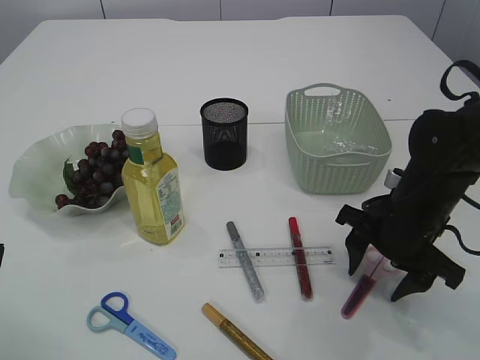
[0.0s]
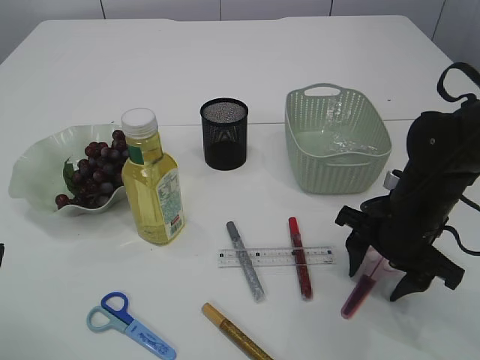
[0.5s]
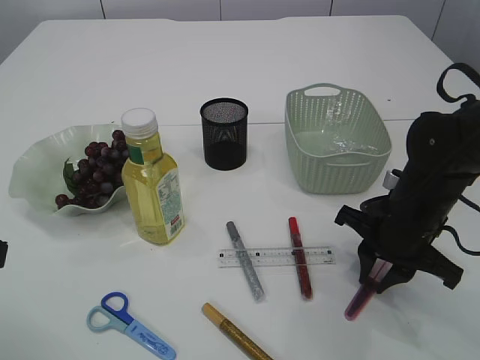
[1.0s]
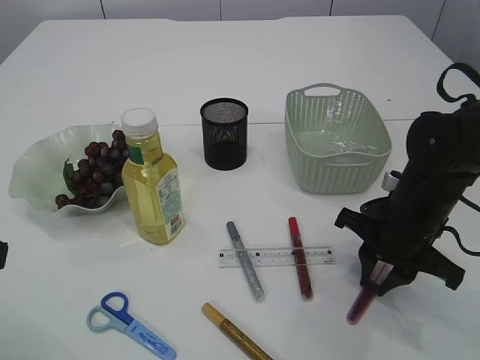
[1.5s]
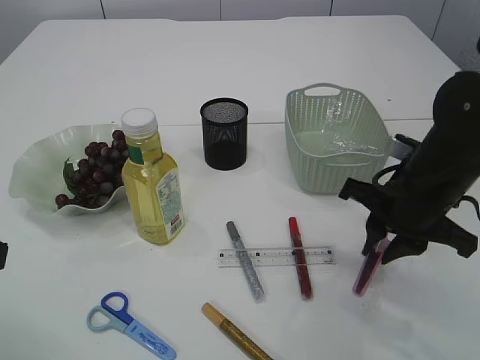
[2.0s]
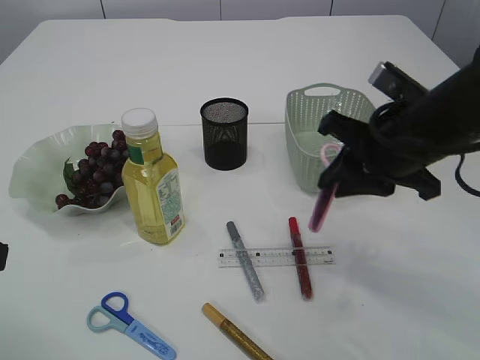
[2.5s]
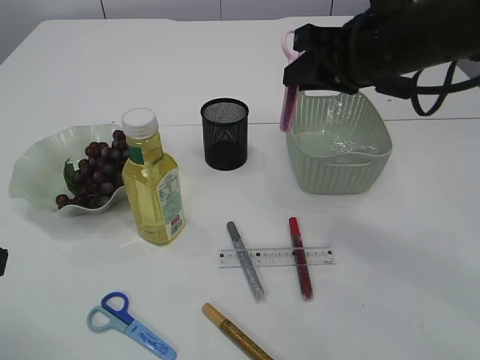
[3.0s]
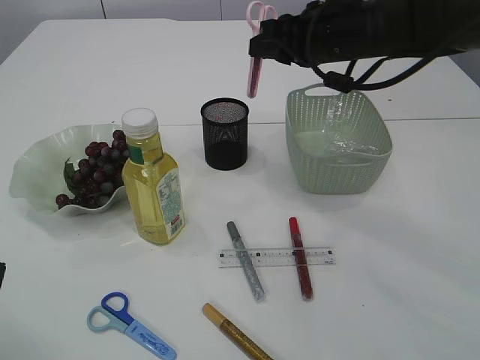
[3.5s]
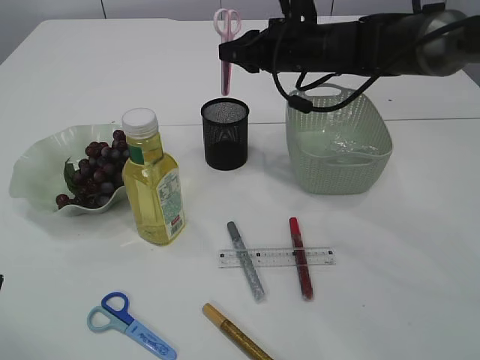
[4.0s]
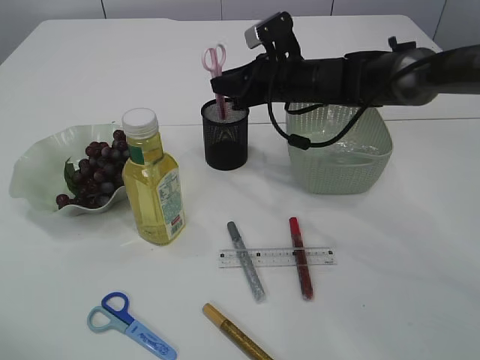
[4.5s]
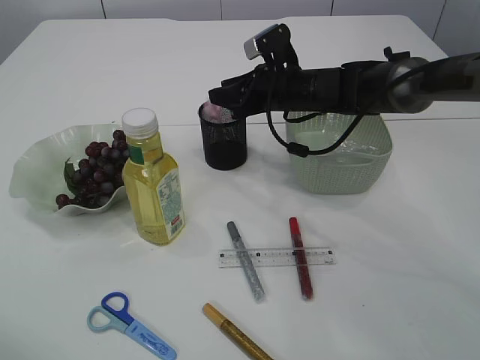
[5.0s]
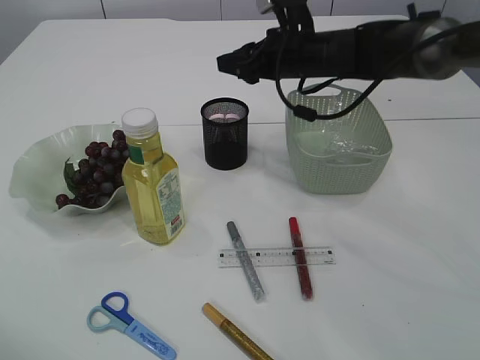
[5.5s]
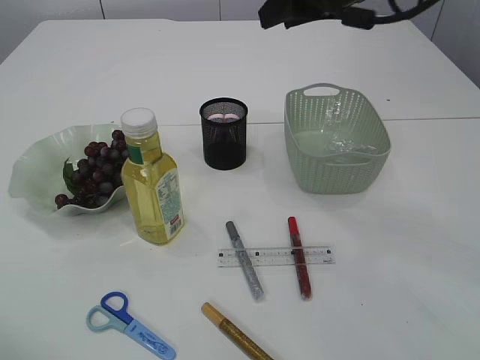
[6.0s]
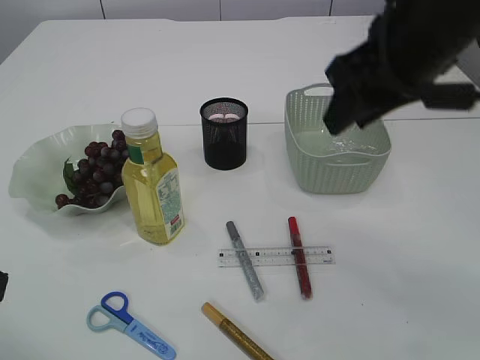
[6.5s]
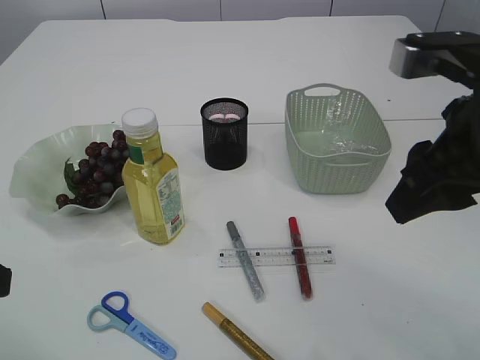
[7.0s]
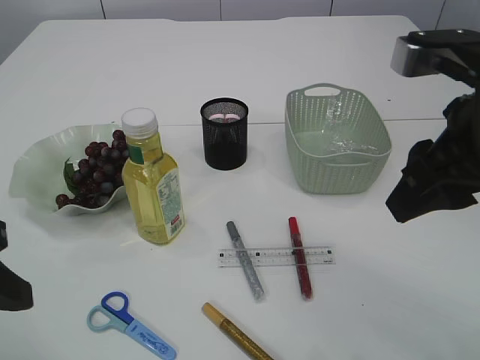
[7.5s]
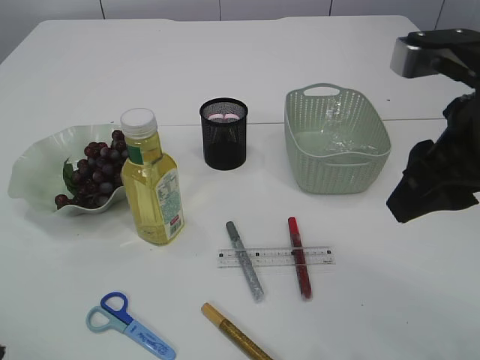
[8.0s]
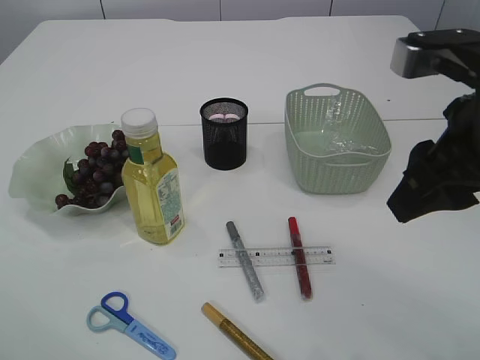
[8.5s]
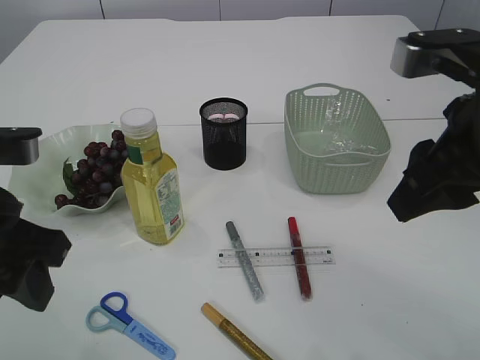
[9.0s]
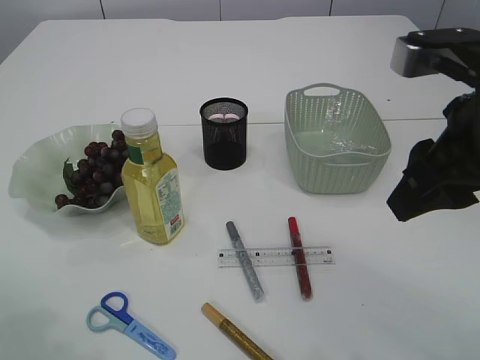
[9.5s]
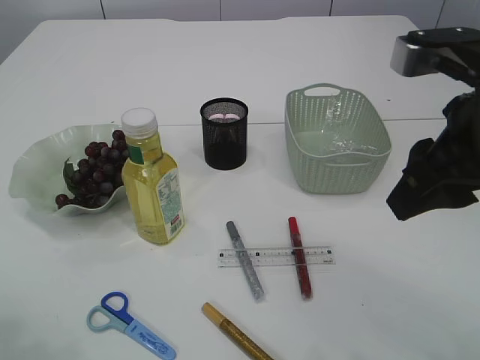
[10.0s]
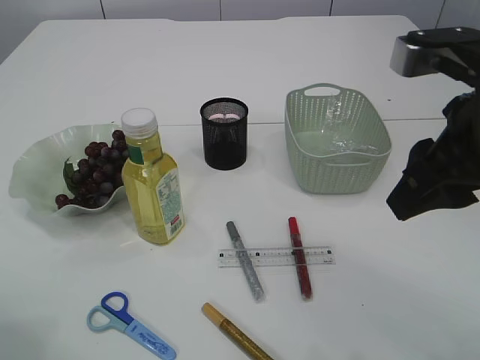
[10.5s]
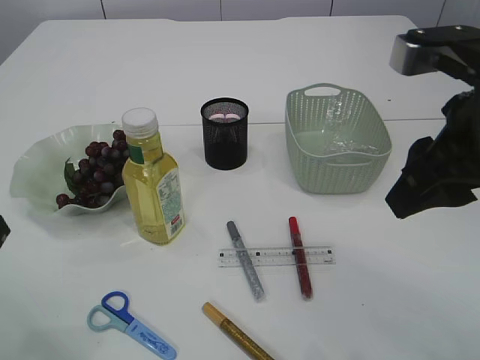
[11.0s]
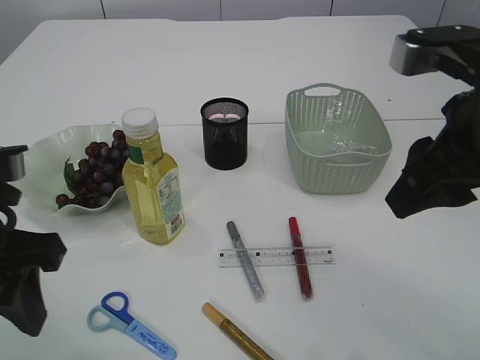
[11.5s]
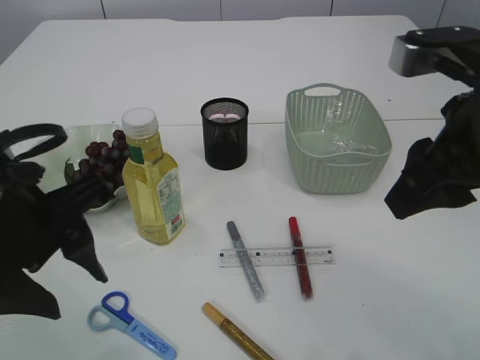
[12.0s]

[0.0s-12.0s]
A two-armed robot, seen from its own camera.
Step, 0.0s to 2.0s: pick up the pink scissors.
Step, 2.5s to 5.5s: Place the pink scissors into the pen holder.
0.0s to 2.0s: The right gripper closes up.
2.0s to 4.0s: The right gripper is displaced forward and to the left by approximately 20 cm.
4.0s to 6.0s: The right gripper moves upward and backward, about 15 cm.
6.0s to 8.0s: The right gripper goes about 20 cm backward. The left gripper changes place by approximately 5 cm.
10.0s to 12.0s: The left gripper shifts approximately 15 cm to the right.

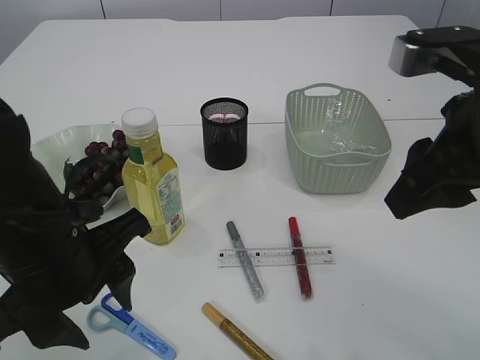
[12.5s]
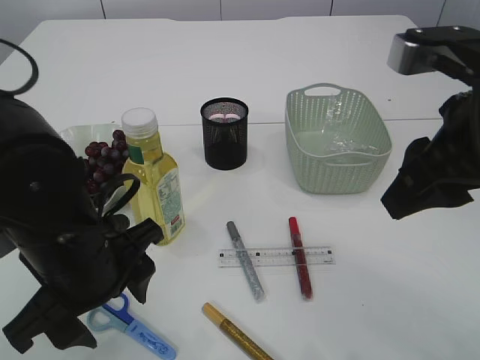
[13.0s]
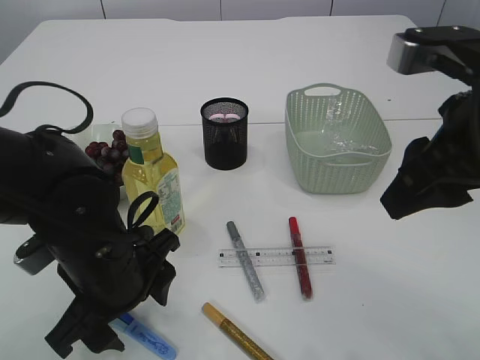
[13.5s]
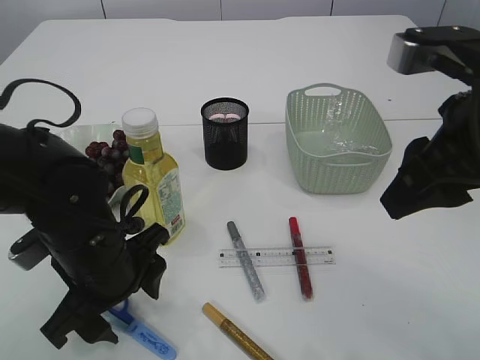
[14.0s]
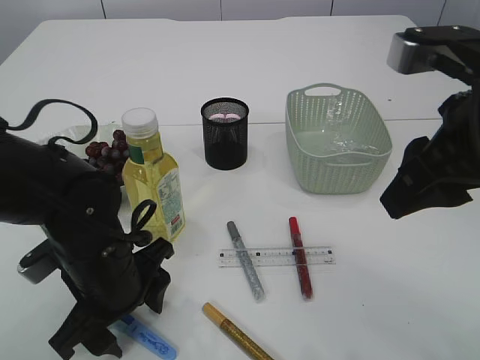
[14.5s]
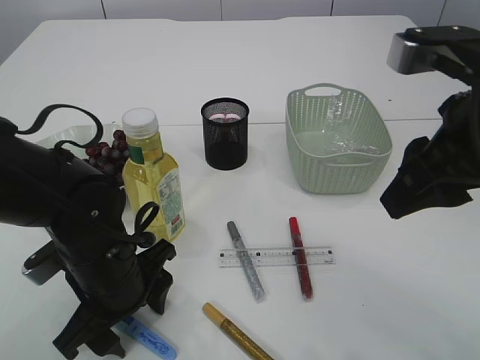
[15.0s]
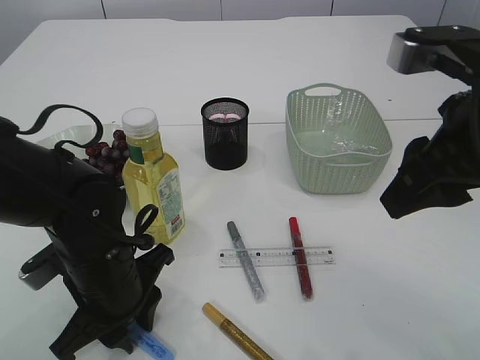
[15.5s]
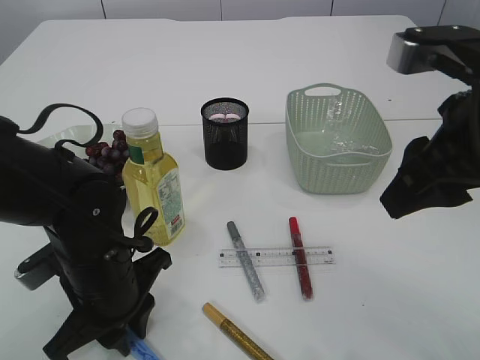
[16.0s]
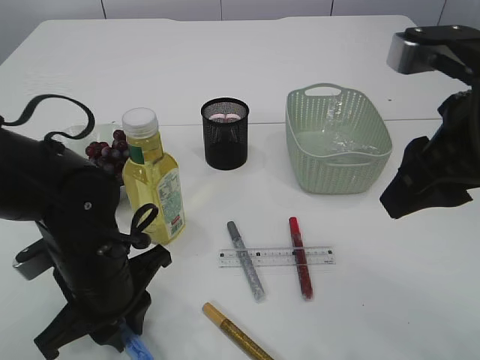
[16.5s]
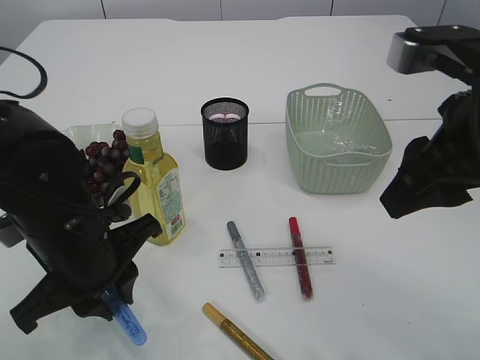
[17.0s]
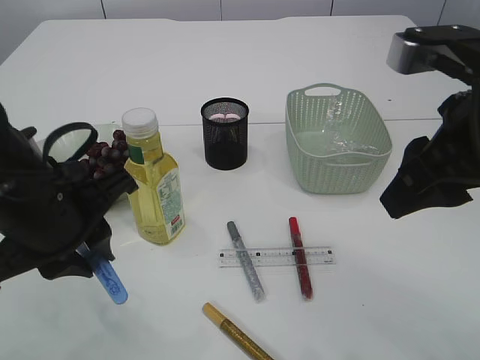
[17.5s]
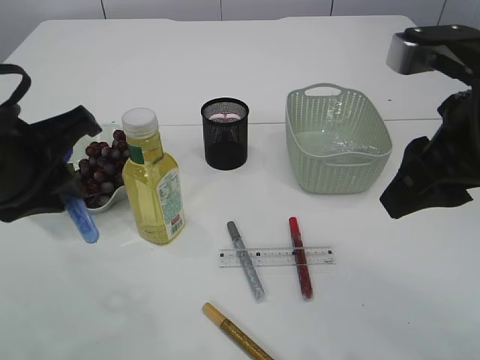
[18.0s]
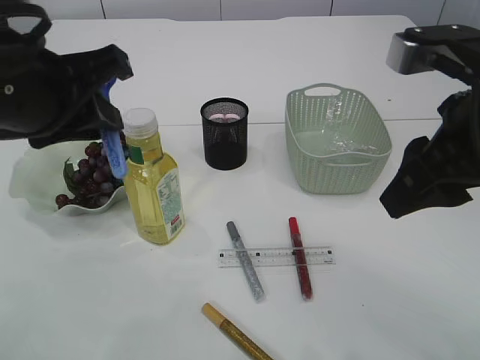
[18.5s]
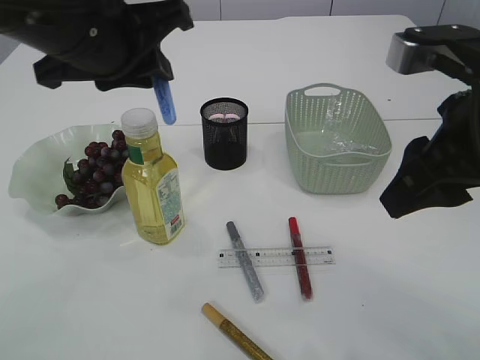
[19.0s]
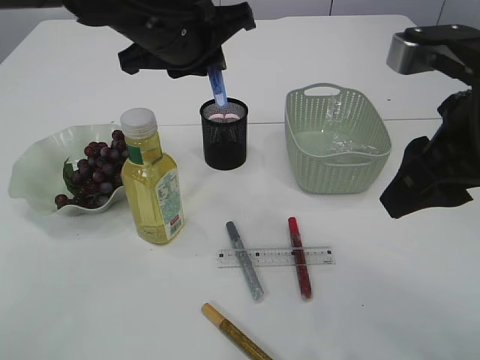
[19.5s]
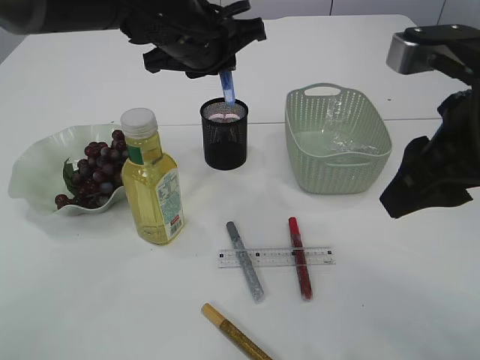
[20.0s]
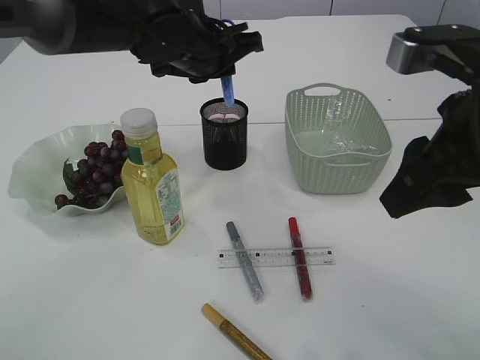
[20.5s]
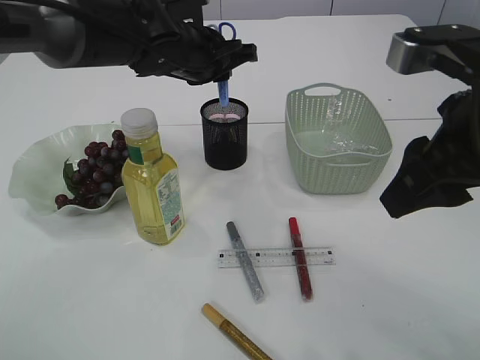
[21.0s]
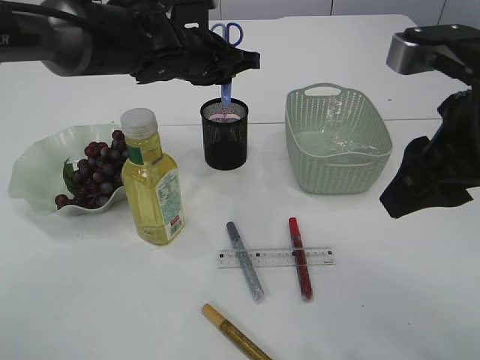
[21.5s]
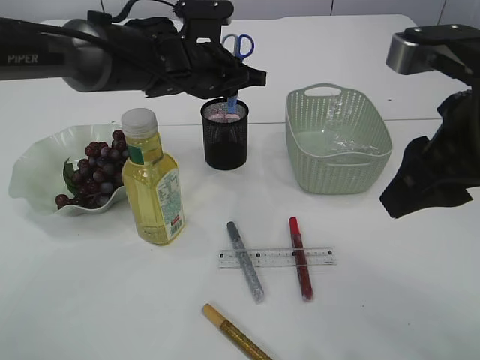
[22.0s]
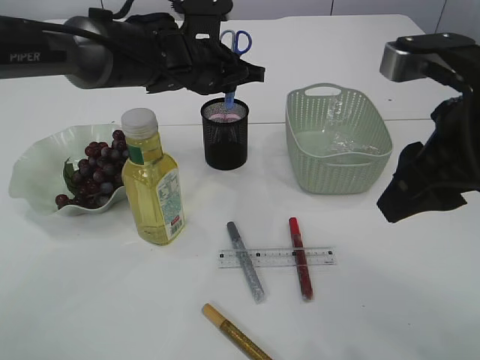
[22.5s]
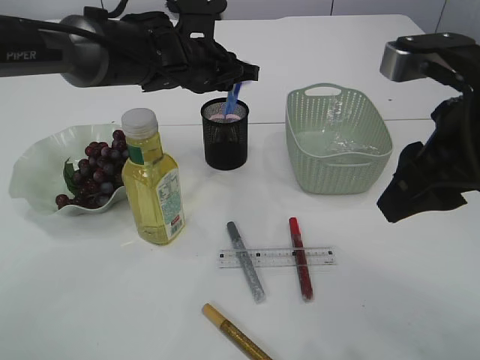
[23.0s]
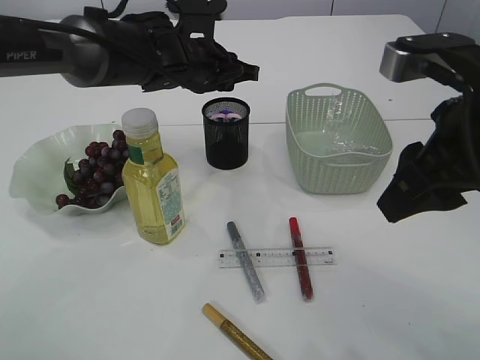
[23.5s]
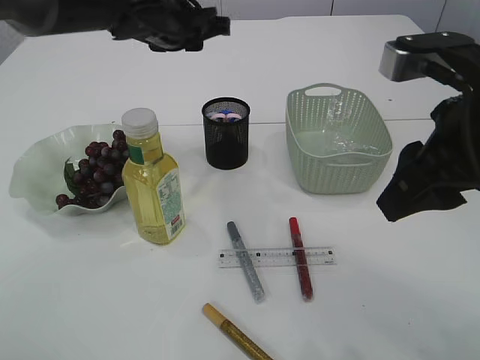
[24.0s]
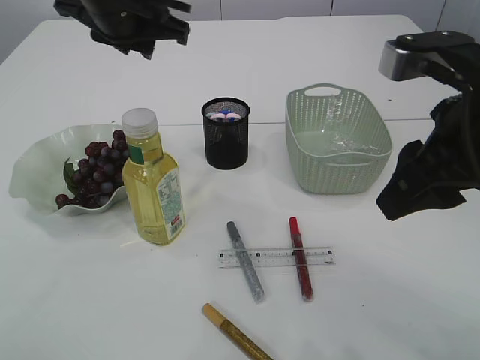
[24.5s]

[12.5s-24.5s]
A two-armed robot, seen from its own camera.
Step, 12.5s to 17.0s: pick up the blue scissors.
Step, 17.5s to 23.5s: Place the blue scissors into the pen holder.
12.5s to 14.5s: The left gripper is displaced downward by approximately 10 cm.
14.5s to 16.5s: The left gripper closes up.
16.5s to 18.5s: The left gripper shifts roughly 20 cm upward.
18.5s to 20.5s: The left gripper shifts roughly 20 cm forward and to the right.
20.5s to 22.5s: The left gripper moves approximately 5 cm.
22.5s to 24.5s: The left gripper shifts approximately 15 cm upward, to the left and backward.

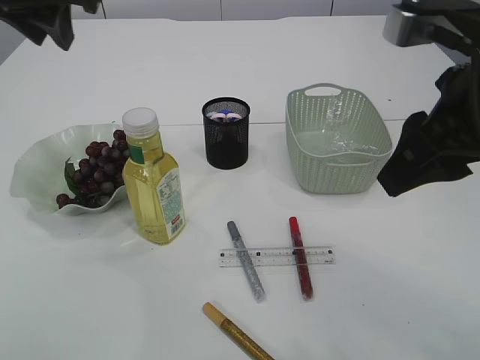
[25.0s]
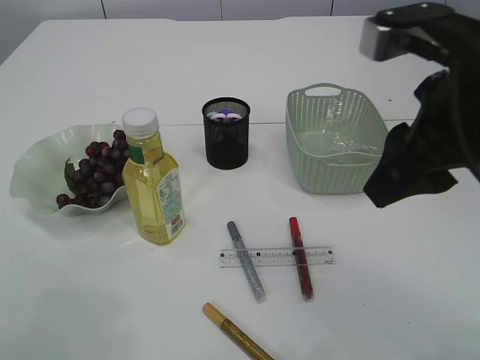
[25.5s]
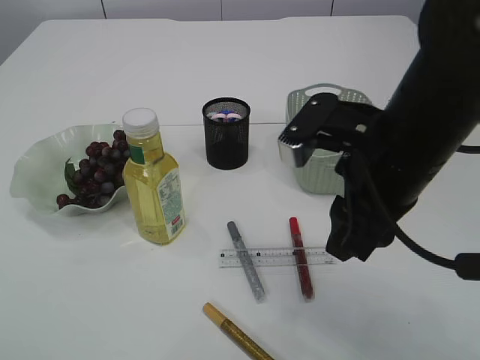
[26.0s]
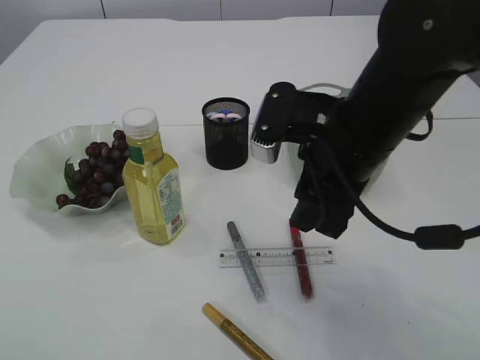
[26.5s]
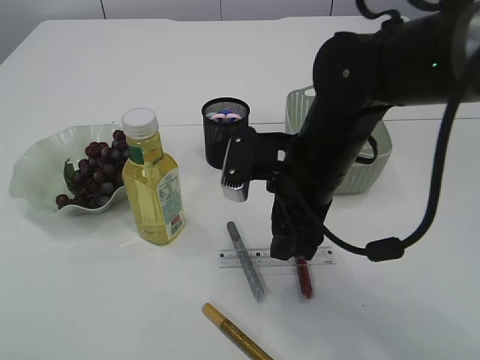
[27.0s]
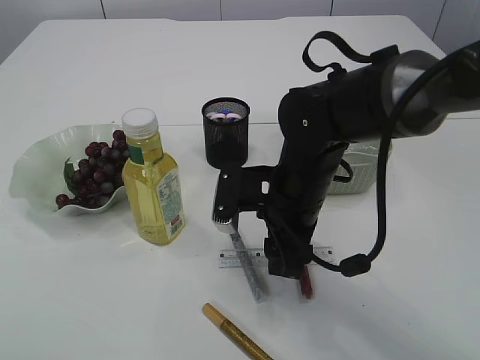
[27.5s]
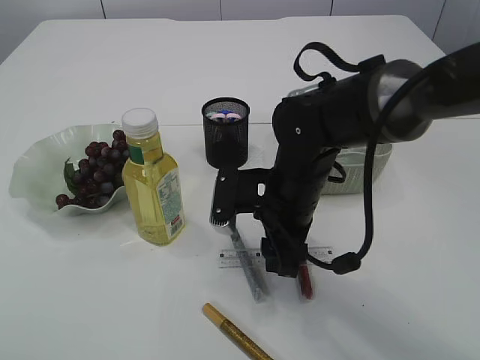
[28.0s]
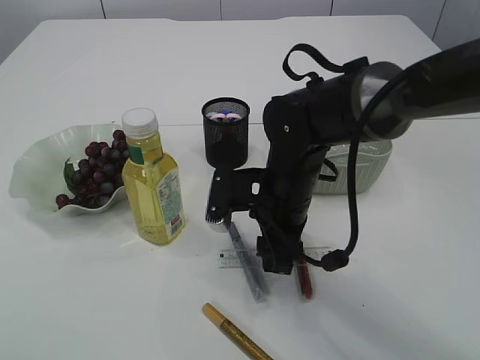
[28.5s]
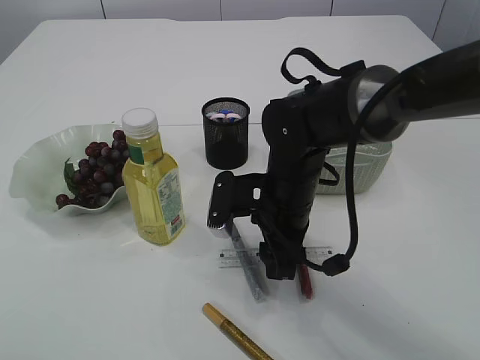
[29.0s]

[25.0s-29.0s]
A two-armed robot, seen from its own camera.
25.0s to 27.0s: The right gripper goes about 20 cm downward, to the left and forward. Meanwhile the left gripper goes some 25 cm backward and to the left, and opens.
27.0s to 29.0s: The right gripper travels downward by some 5 cm.
